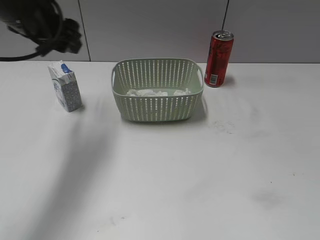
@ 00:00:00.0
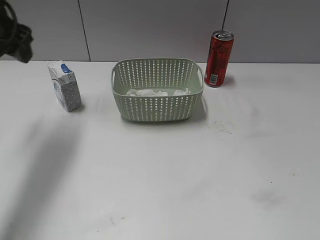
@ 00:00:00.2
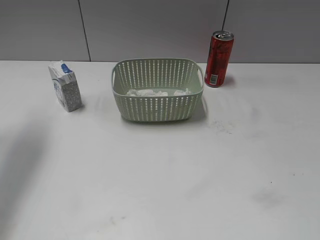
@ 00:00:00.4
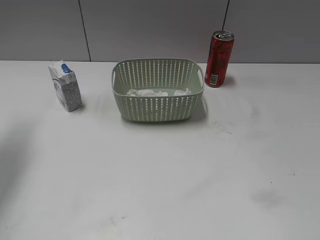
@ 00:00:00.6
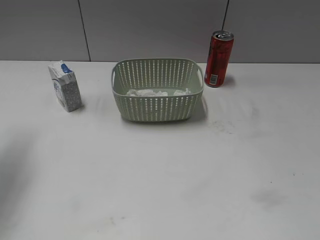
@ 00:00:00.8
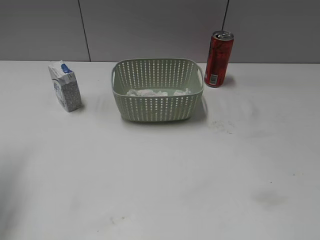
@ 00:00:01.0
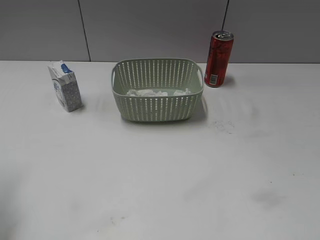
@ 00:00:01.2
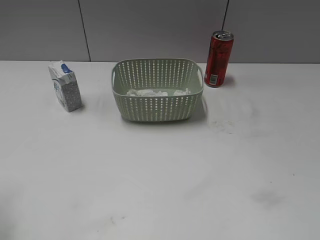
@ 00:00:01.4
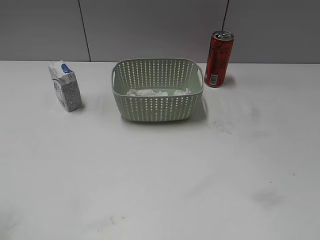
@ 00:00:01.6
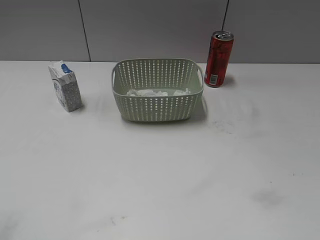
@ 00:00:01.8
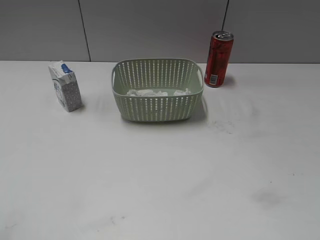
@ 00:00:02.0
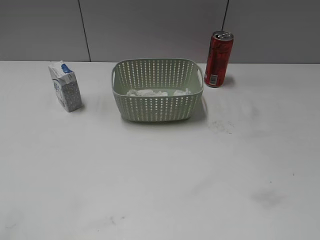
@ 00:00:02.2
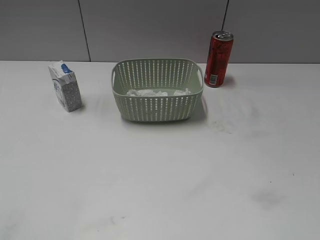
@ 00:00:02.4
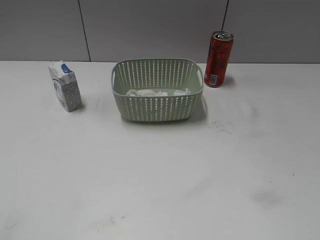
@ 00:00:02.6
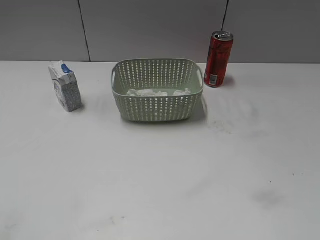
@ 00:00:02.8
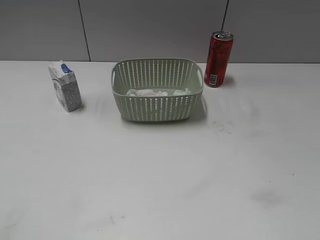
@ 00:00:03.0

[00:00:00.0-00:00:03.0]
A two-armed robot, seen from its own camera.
00:00:00.0 to 00:00:01.6: The left gripper heads backward and to the left, covering approximately 25 cm.
